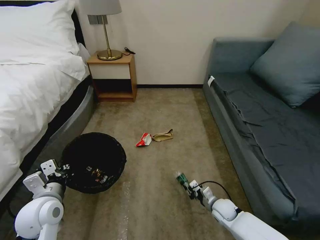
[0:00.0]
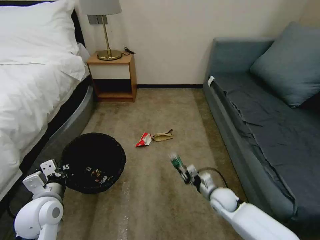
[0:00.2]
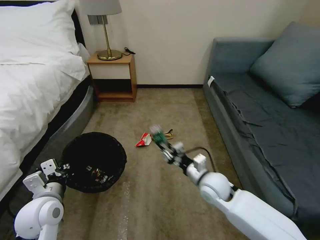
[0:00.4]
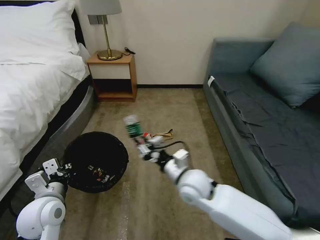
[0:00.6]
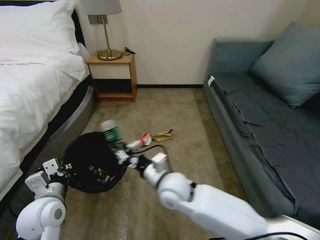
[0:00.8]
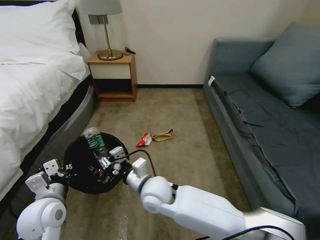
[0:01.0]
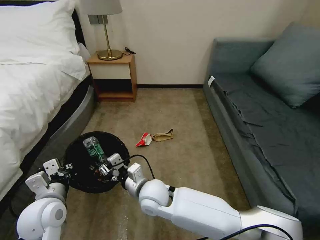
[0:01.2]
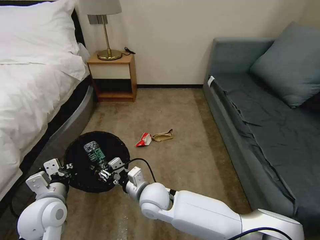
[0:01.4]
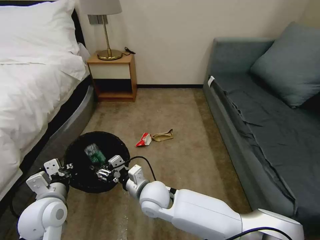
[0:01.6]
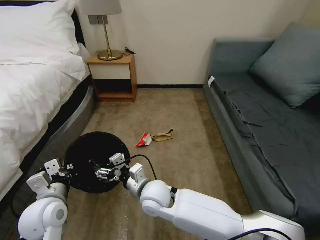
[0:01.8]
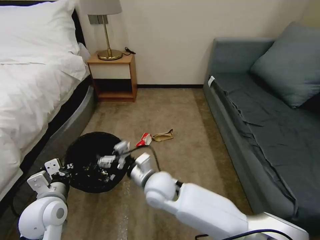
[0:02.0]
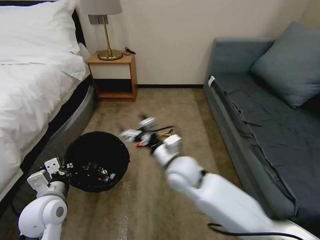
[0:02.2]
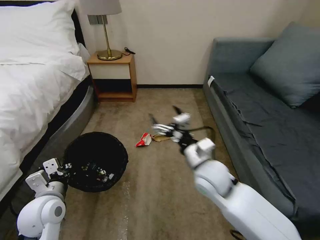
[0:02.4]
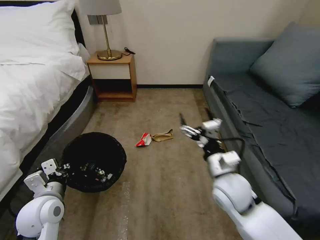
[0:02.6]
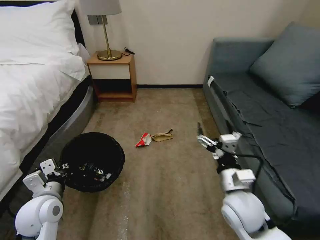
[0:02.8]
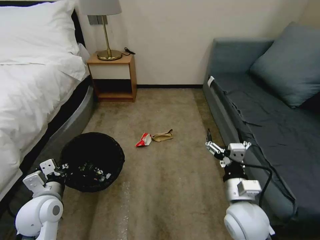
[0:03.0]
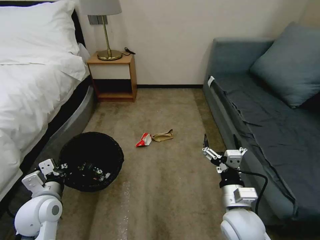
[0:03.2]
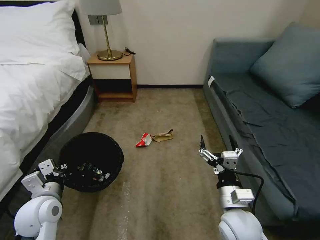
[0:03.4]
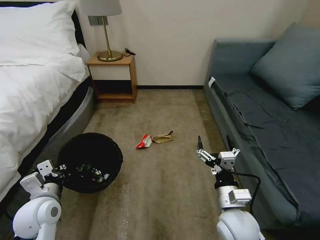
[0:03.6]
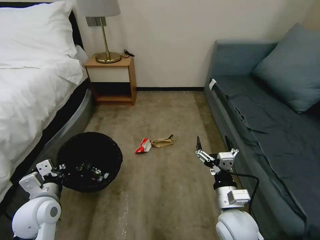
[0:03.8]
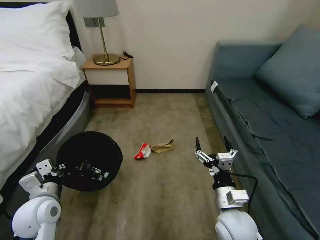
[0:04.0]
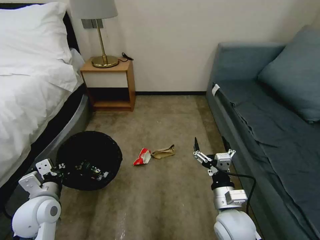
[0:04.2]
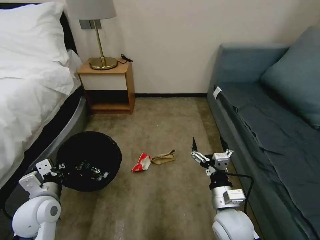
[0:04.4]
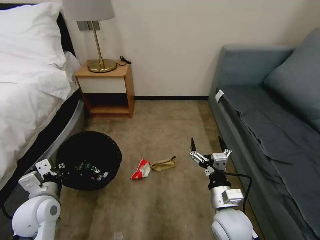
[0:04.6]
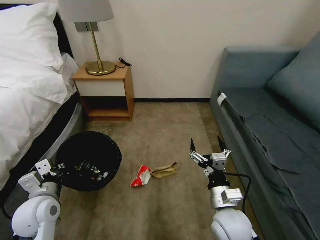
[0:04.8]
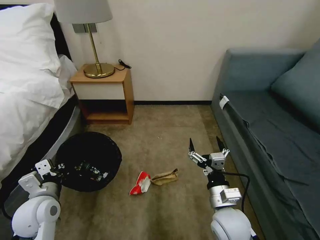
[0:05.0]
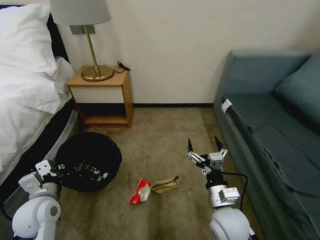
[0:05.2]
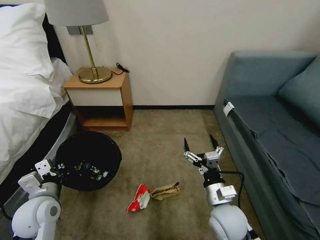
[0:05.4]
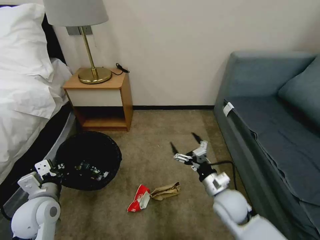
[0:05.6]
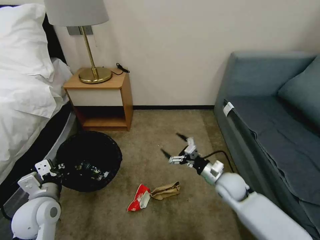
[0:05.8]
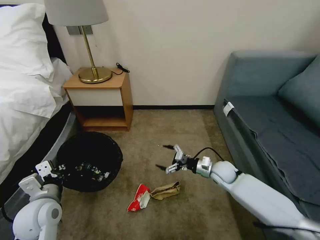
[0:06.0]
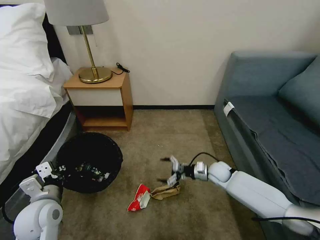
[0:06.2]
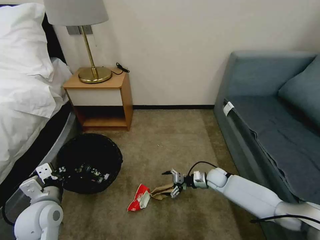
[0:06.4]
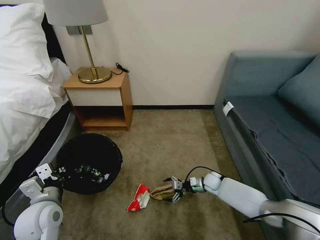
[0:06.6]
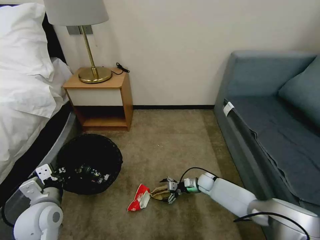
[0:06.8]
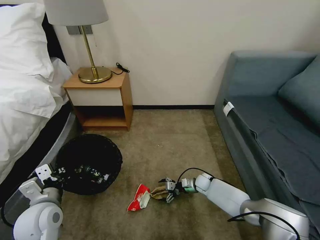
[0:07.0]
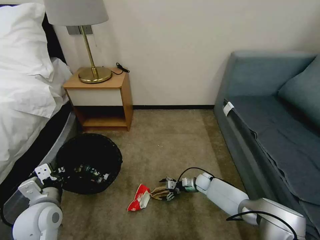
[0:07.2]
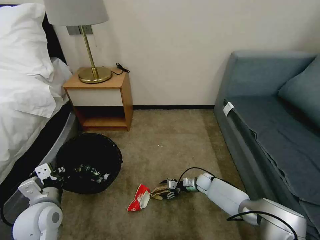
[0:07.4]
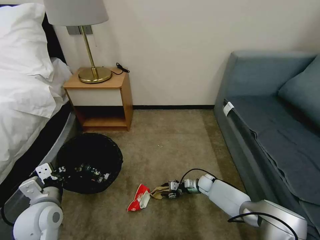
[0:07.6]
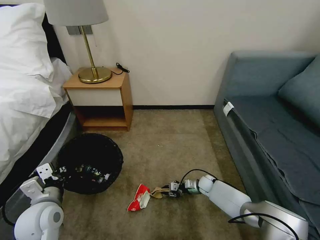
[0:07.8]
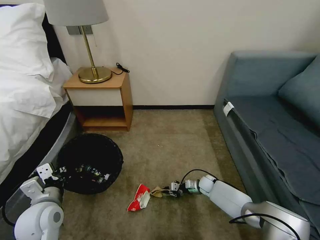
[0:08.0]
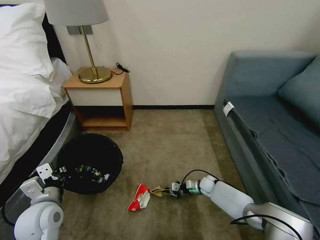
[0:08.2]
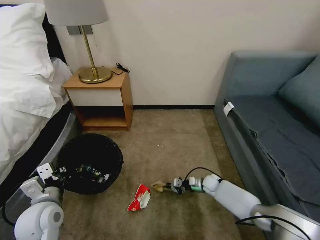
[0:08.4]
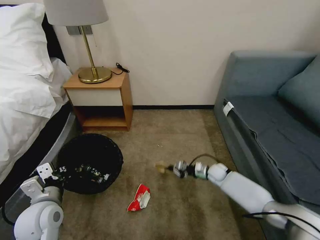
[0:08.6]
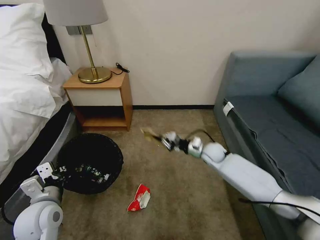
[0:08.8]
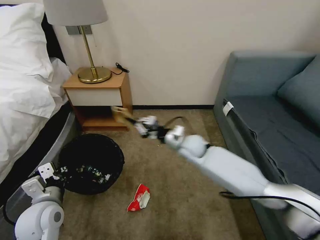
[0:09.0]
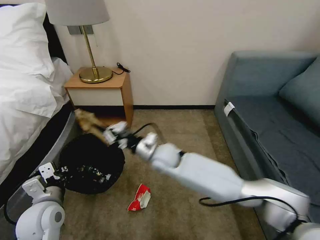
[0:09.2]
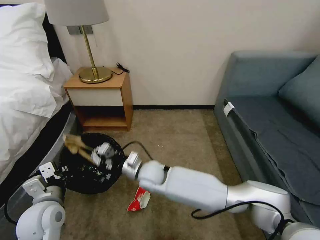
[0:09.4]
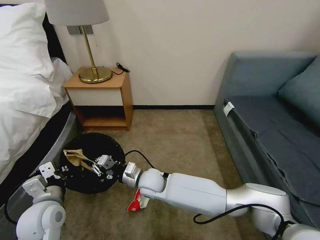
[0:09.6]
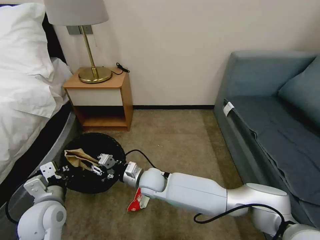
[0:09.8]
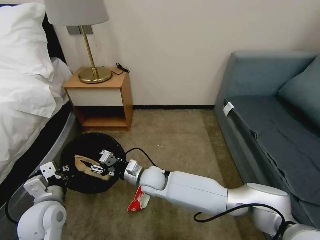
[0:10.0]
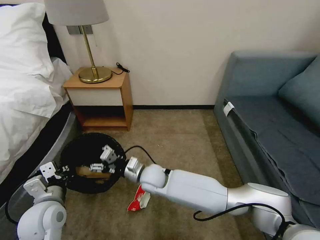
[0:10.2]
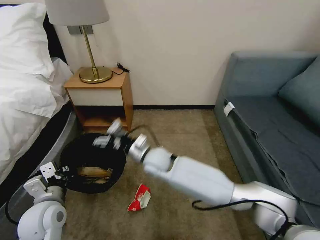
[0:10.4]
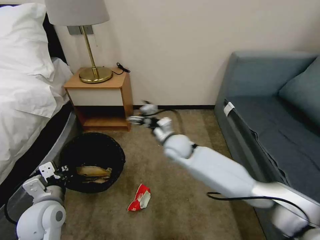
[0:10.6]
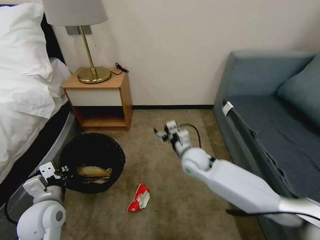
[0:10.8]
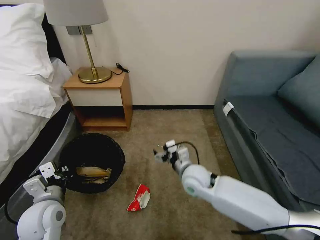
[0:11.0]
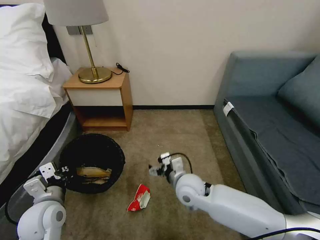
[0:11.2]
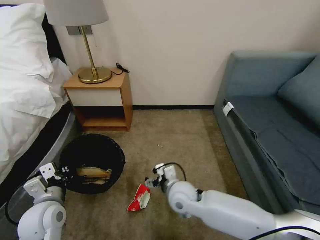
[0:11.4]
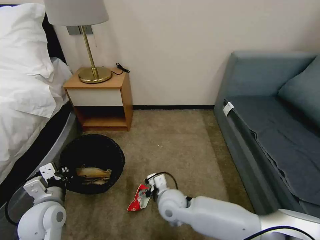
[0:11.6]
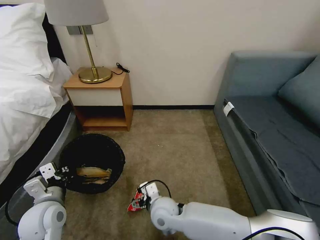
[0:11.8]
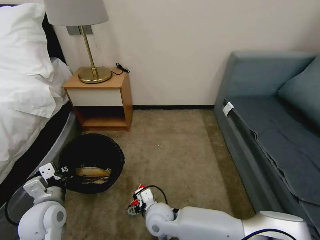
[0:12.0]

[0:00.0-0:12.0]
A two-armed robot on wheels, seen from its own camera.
Task of the whole recording: Pick up the trash bin, then pick up the garbage on the floor and place it into the trash bin.
0:00.0 to 0:01.6: The right gripper travels to the left and upward by approximately 35 cm, and opens its fingers.
0:01.6 to 0:03.0: The right gripper travels to the right by some 25 cm.
0:04.4 to 0:06.0: The right gripper moves forward, roughly 20 cm.
0:06.0 to 0:07.6: The right gripper shifts about 20 cm downward, and closes.
0:07.6 to 0:09.0: The right gripper travels upward by approximately 25 cm, and closes up.
0:09.0 to 0:10.4: The right gripper travels to the left and backward by about 15 cm, and opens its fingers.
0:10.4 to 0:12.0: The right gripper heads backward and downward, covering roughly 20 cm.

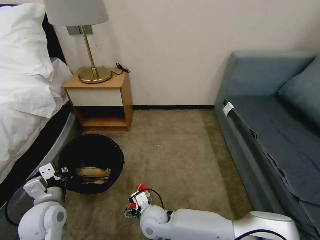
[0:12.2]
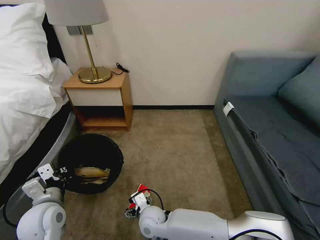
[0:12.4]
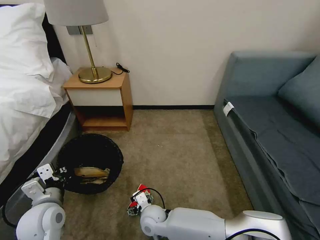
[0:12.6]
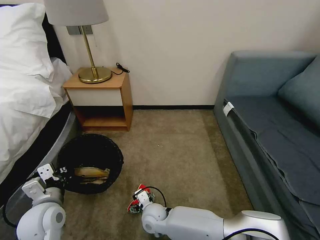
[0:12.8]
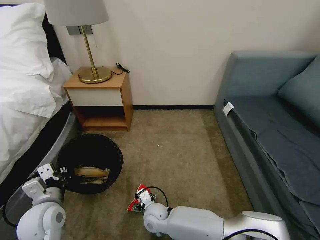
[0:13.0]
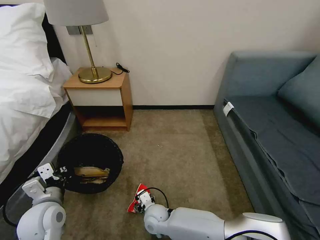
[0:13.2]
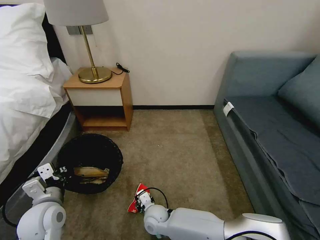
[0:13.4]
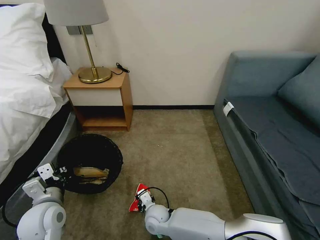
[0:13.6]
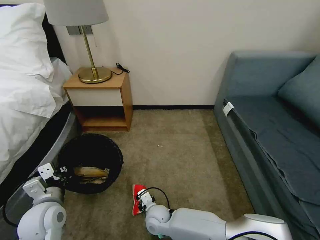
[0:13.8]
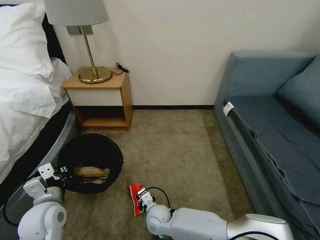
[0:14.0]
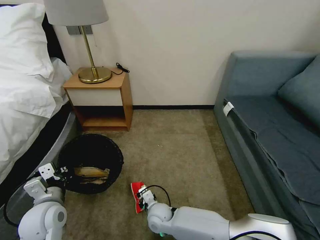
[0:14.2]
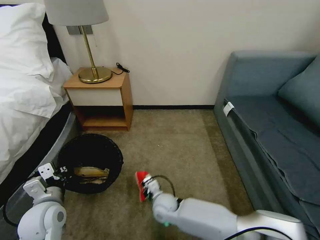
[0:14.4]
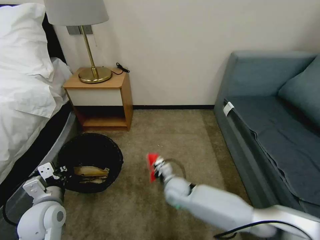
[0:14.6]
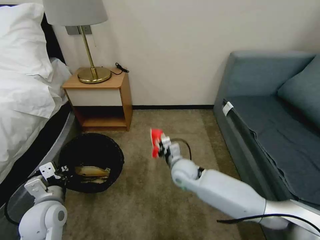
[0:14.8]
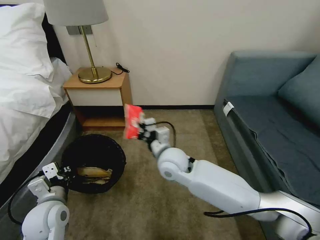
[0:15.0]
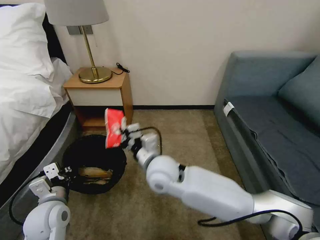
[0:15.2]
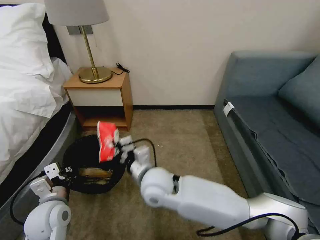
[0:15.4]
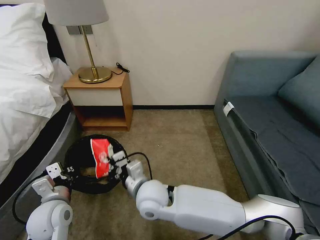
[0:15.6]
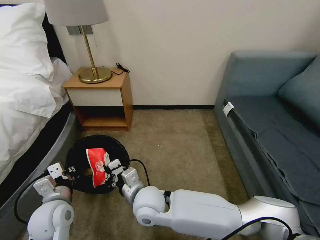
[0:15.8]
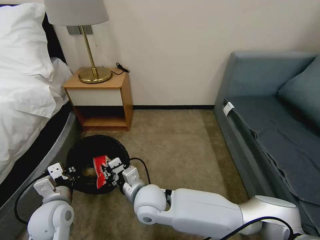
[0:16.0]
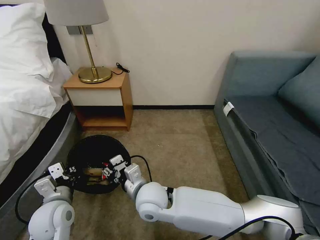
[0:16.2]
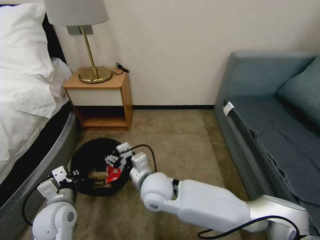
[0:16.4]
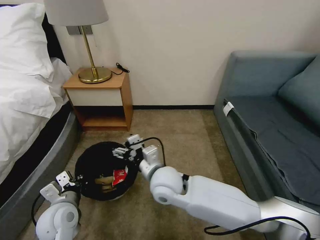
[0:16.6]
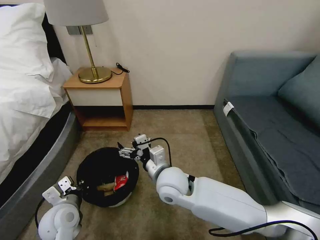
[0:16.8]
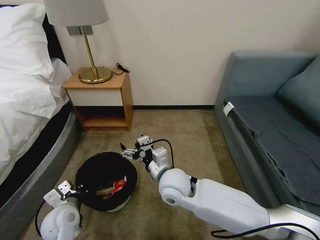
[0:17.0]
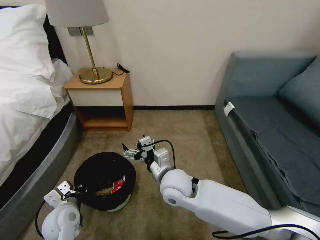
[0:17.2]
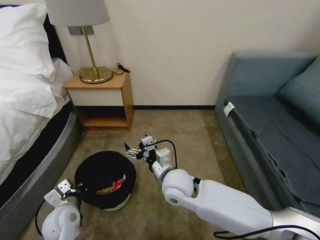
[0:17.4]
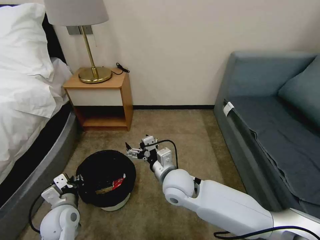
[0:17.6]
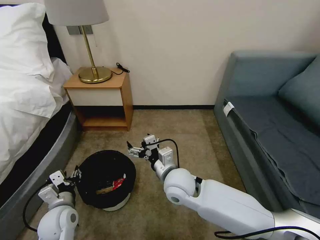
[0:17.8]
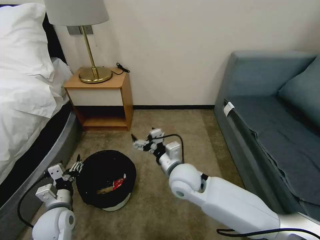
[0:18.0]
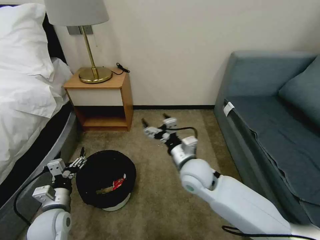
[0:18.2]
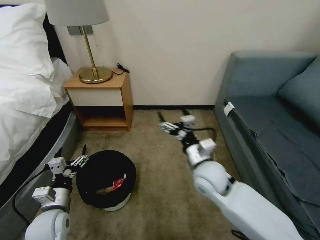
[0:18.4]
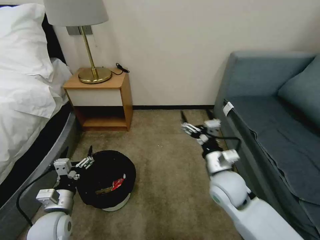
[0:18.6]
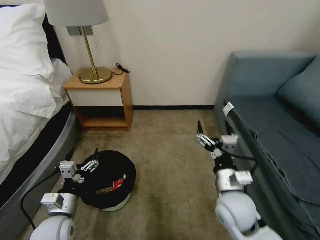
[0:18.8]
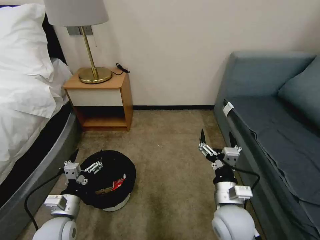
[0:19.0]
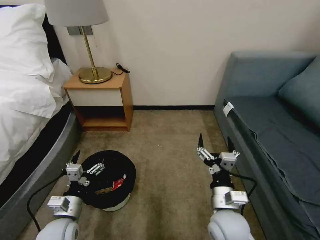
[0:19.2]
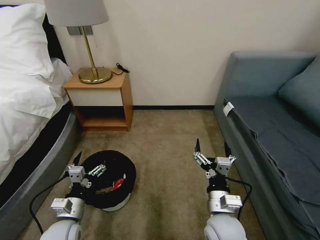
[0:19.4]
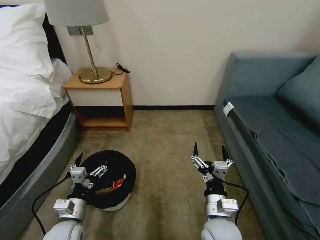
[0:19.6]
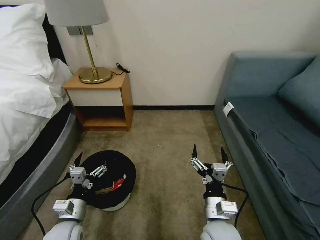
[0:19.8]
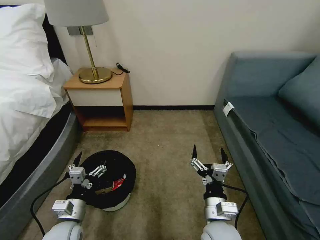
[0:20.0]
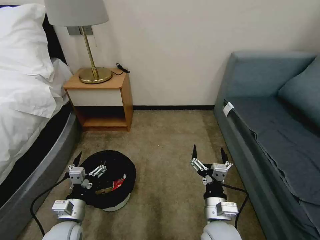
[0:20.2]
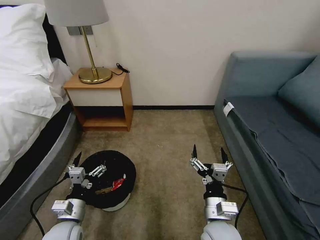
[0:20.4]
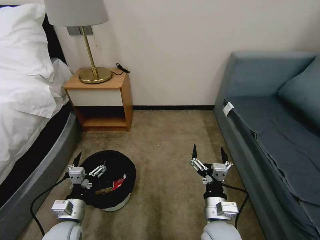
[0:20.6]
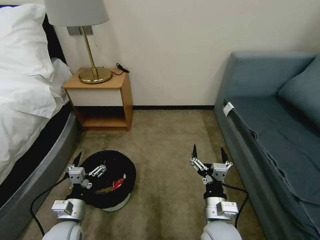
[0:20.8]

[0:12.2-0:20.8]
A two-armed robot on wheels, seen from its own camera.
Task of the whole recording: Pick up the trash bin, then pick up the garbage on the floor and place it into the trash bin.
0:12.2 to 0:13.6: The right gripper heads downward, covering roughly 5 cm, and closes.
0:13.6 to 0:15.0: The right gripper heads upward, covering roughly 25 cm.
0:15.0 to 0:16.6: The right gripper heads backward, covering roughly 5 cm, and opens up.
0:16.6 to 0:18.0: The left gripper opens its fingers; the right gripper travels to the right by some 5 cm.
0:18.0 to 0:19.4: The right gripper heads backward, to the right and downward, covering about 15 cm.
0:19.4 to 0:20.8: The grippers move only a little.

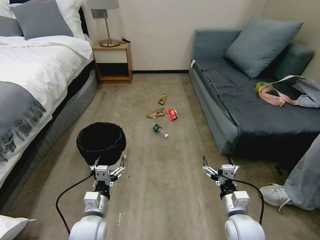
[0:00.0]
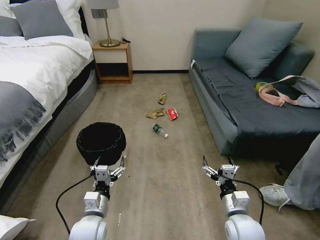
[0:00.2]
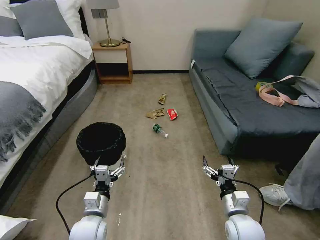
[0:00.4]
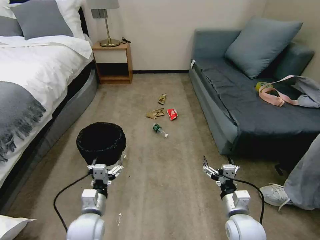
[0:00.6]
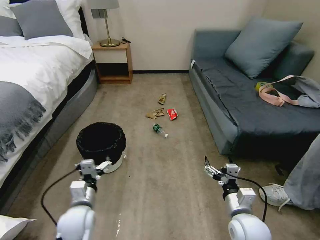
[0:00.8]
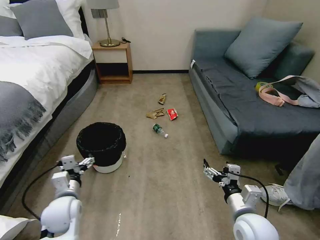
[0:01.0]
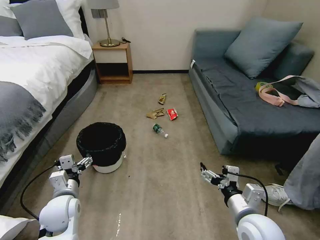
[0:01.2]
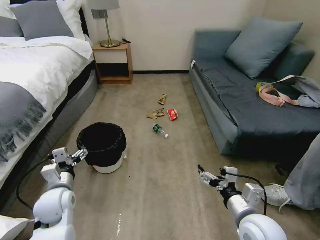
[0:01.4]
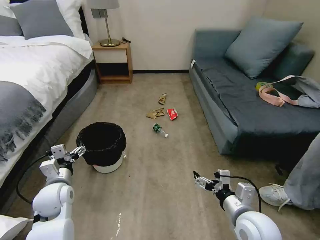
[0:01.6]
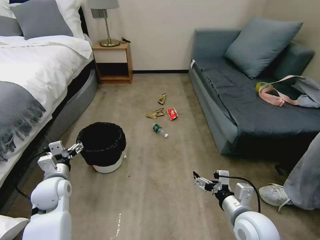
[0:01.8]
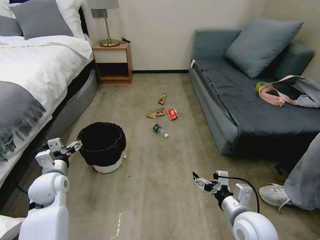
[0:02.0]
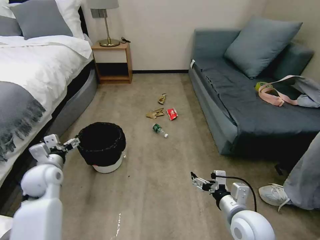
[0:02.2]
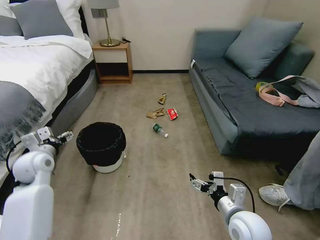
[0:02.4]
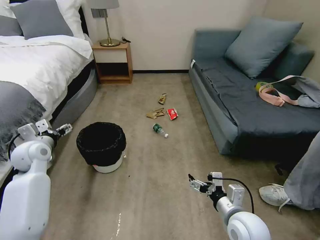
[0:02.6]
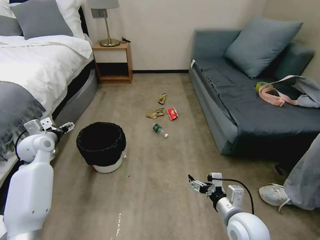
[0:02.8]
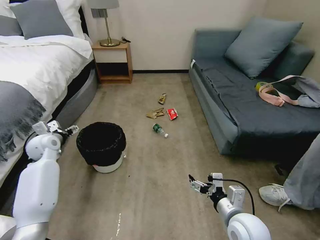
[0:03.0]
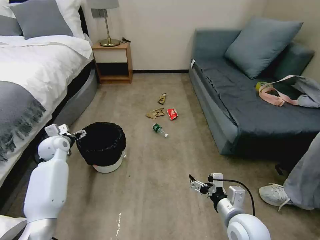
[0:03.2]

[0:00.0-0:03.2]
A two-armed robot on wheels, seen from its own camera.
Task of the whole recording: Pick up the trash bin, then pick up the garbage on the floor and place it into the trash bin.
0:01.6 to 0:03.2: The left gripper moves forward and to the left, some 20 cm.
